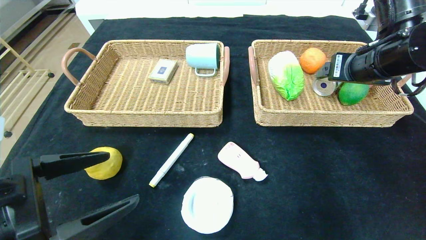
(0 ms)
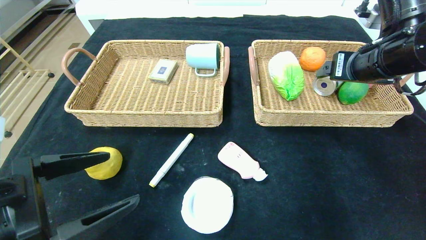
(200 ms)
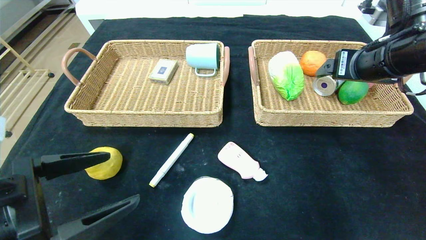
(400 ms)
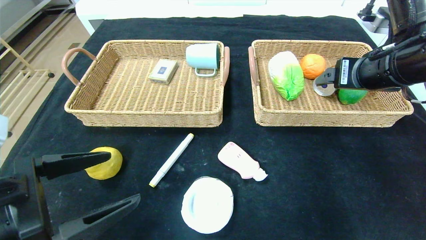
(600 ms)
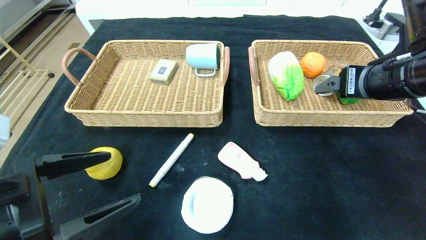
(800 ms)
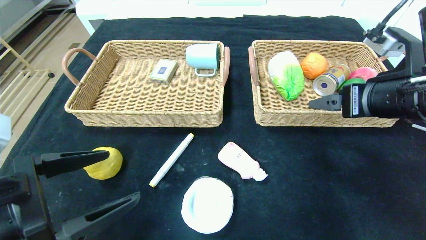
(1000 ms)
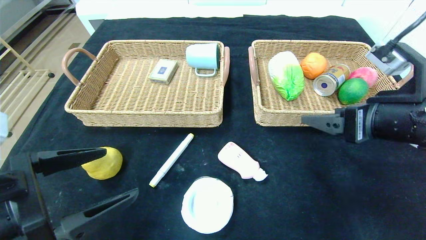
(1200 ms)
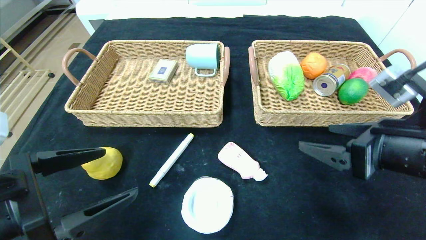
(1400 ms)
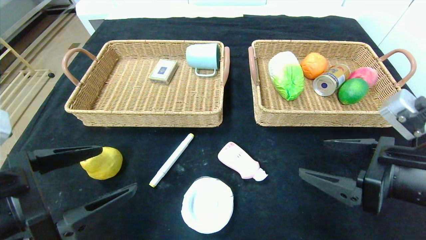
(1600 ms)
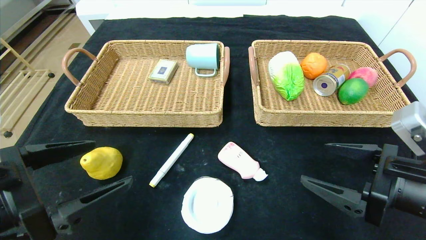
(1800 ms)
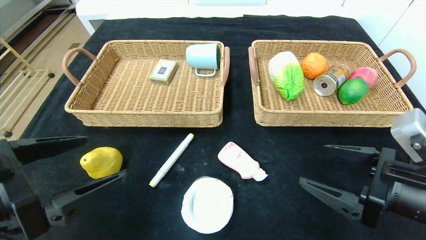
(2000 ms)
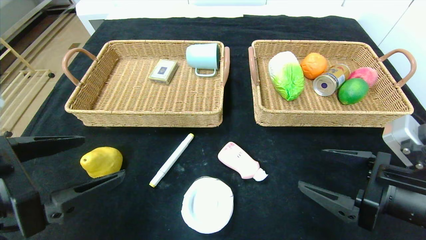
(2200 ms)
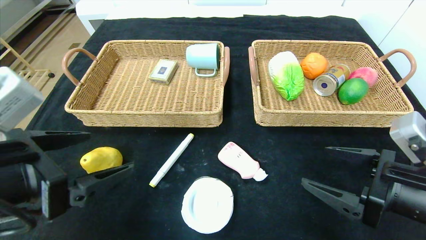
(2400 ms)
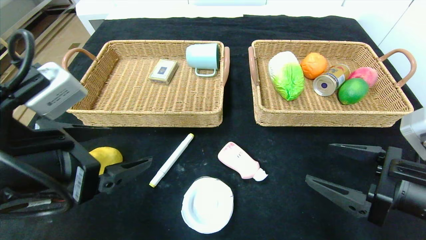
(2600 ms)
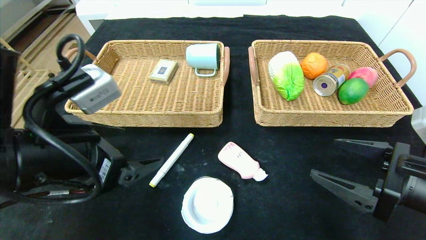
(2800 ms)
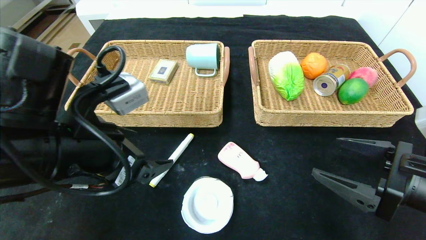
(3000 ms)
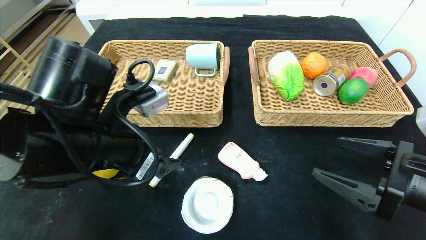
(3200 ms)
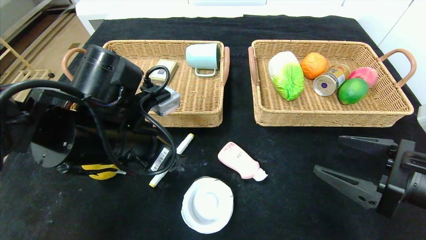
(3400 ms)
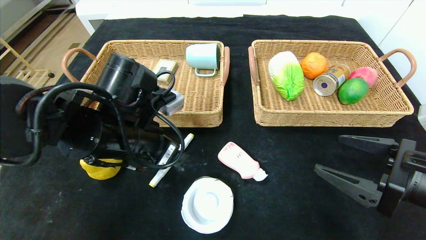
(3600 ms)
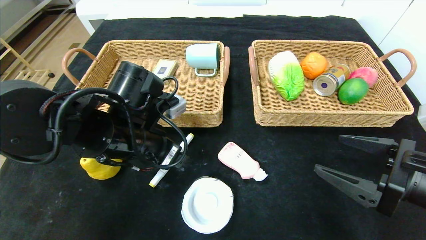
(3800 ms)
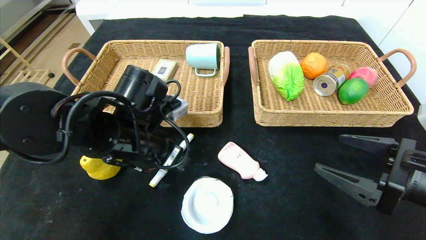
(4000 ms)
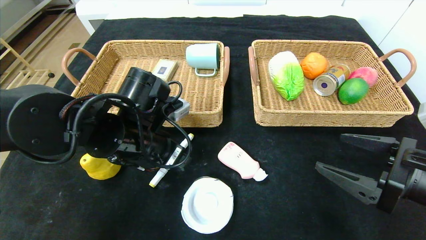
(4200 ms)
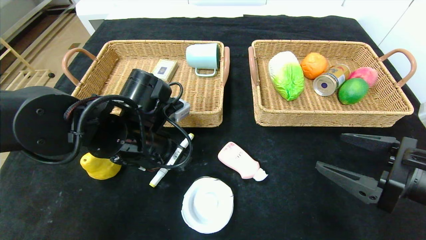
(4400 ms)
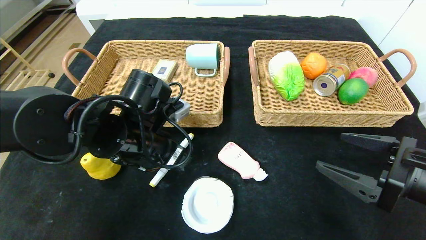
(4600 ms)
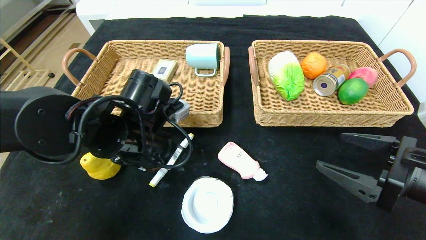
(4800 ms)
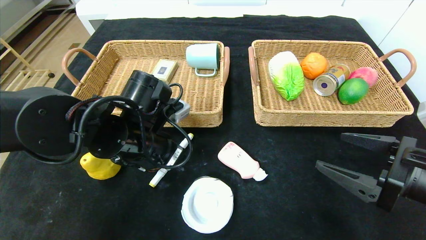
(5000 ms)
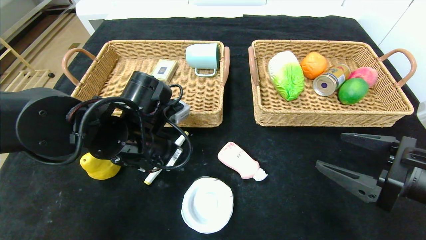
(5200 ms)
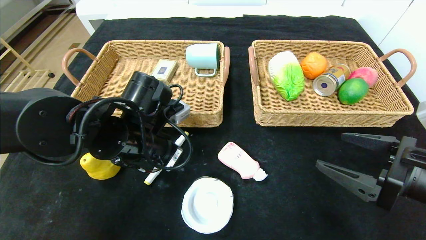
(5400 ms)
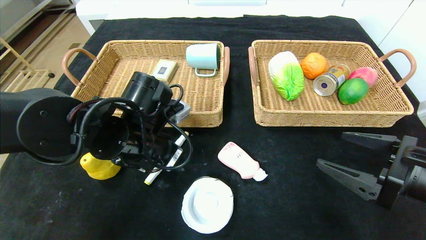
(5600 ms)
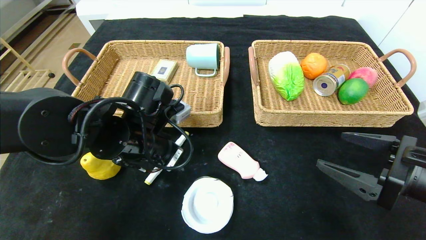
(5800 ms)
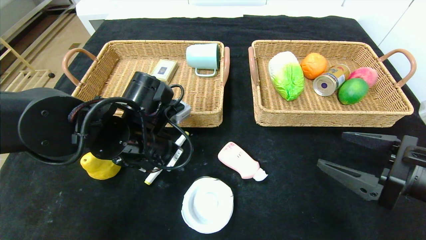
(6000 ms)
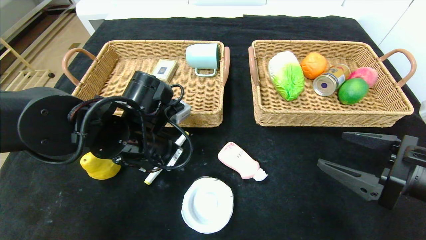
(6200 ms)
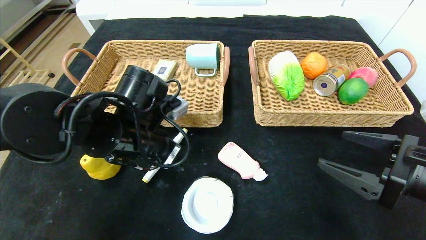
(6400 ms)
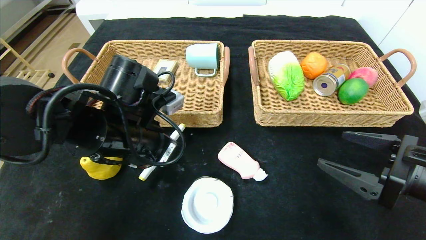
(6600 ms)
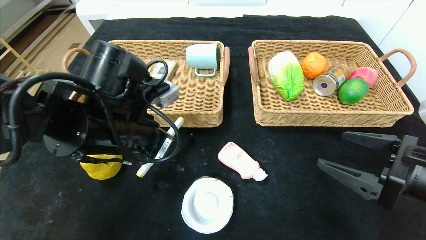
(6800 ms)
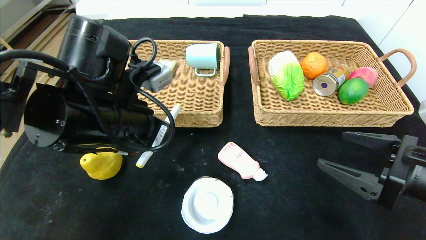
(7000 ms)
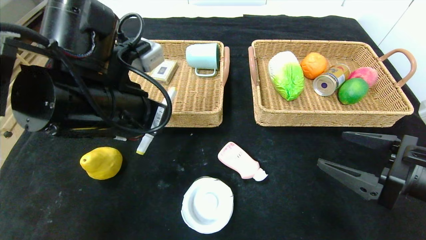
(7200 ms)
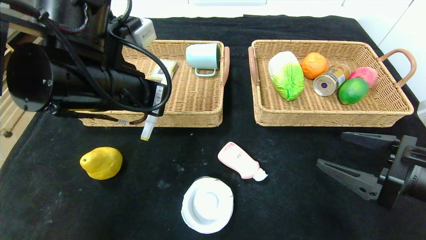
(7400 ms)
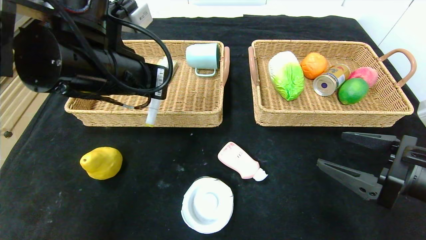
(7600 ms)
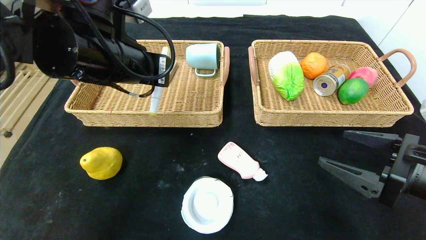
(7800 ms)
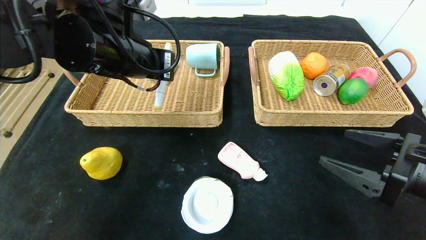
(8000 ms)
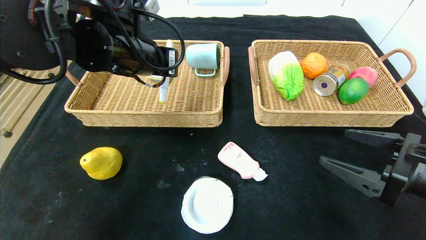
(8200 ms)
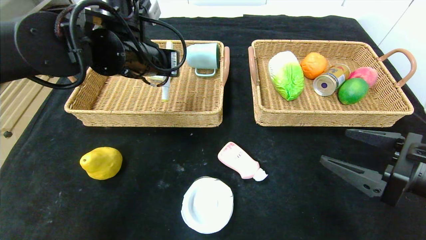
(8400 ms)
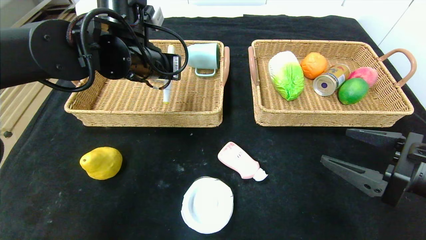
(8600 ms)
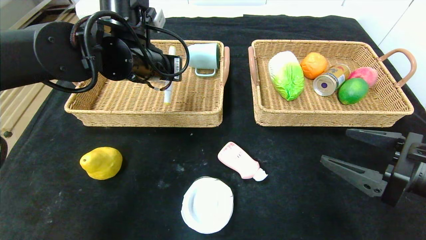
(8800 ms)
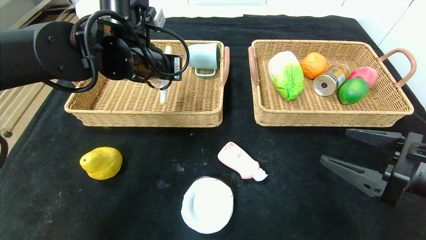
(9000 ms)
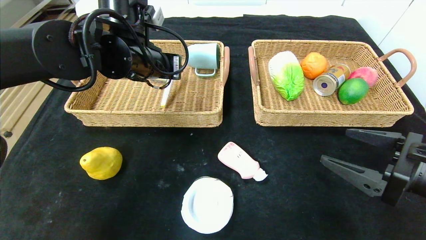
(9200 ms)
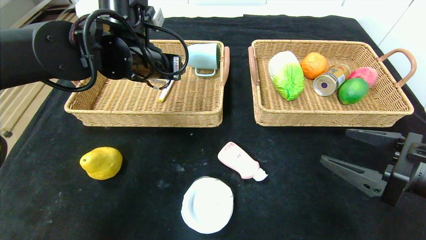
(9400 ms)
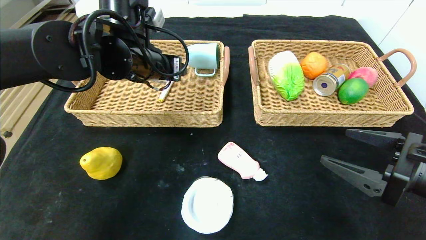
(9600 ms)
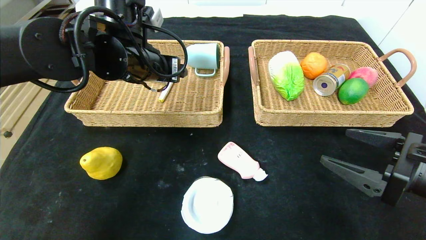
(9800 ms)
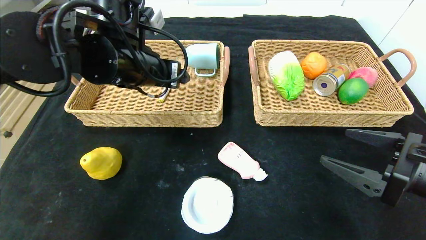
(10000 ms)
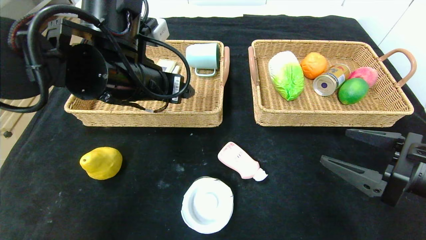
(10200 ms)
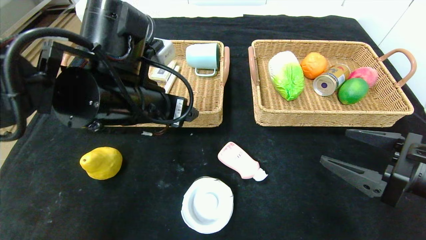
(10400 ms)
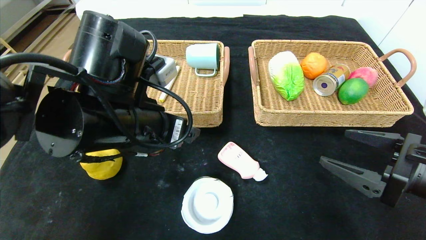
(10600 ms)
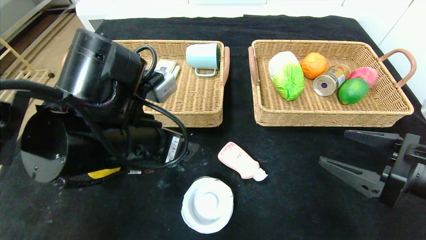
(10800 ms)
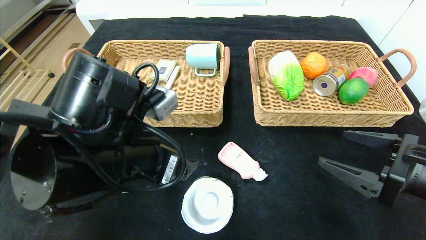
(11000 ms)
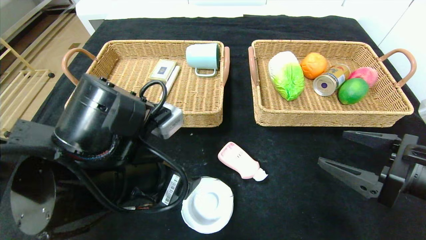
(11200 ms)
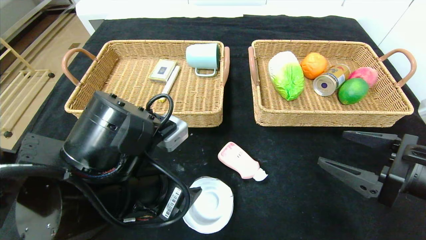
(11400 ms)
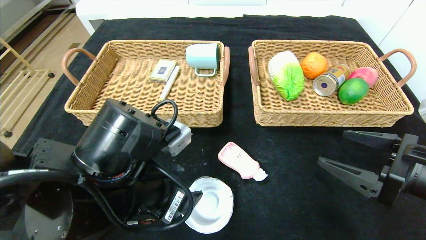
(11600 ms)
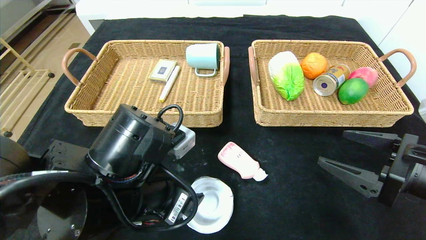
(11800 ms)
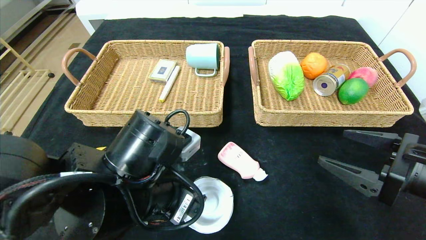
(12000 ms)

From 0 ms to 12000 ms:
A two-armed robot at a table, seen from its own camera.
Step, from 200 ms to 9200 ms: Grasp the yellow marker and put it in the left basket.
From 0 ms to 1600 ms: The right gripper moves backward and downward, roughly 20 cm.
From 1600 ms to 3000 ms: The left gripper is displaced forward and to the right by about 10 cm.
From 3000 ms to 4400 ms: The left gripper is displaced forward and downward by about 10 cm.
From 4400 ms to 6000 ms: The left gripper closes.
From 6000 ms to 7600 ms: The left gripper heads upward, covering some 10 cm.
From 7600 ms to 9000 ms: The left gripper is displaced forward by some 10 cm.
From 9000 ms to 10400 ms: The left gripper moves backward, approximately 10 cm, and opens.
From 10400 ms to 12000 ms: The left gripper moves downward and backward, approximately 10 cm.

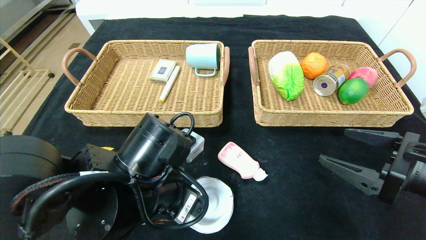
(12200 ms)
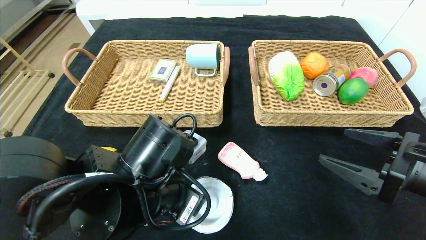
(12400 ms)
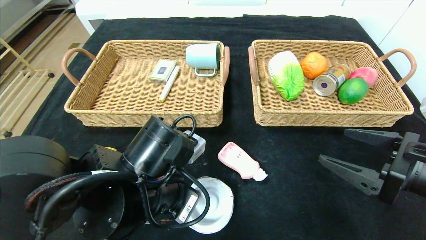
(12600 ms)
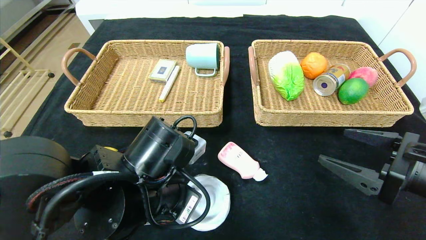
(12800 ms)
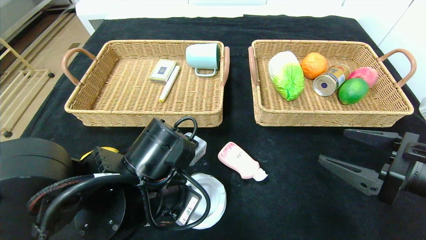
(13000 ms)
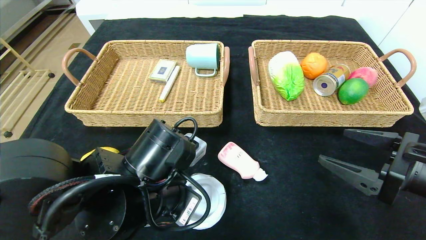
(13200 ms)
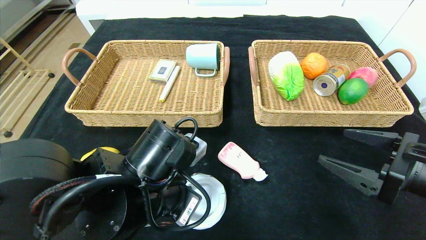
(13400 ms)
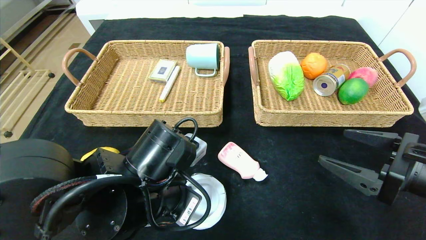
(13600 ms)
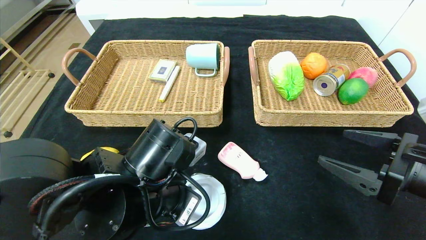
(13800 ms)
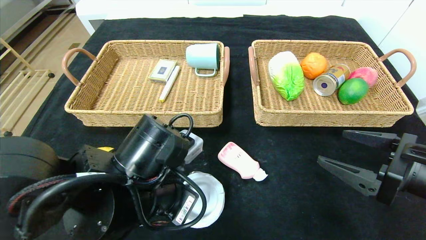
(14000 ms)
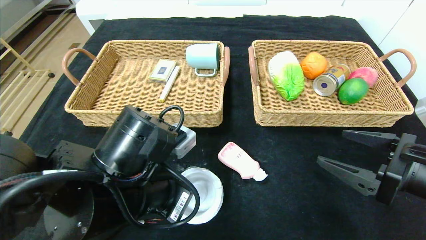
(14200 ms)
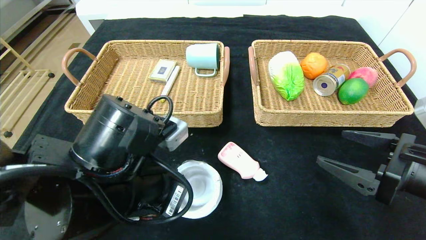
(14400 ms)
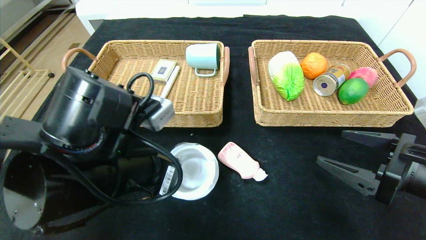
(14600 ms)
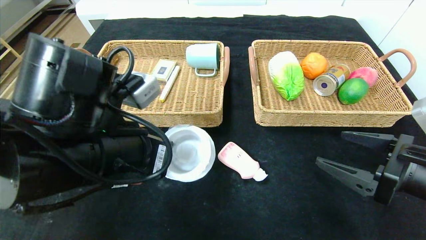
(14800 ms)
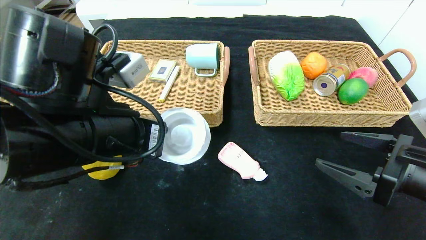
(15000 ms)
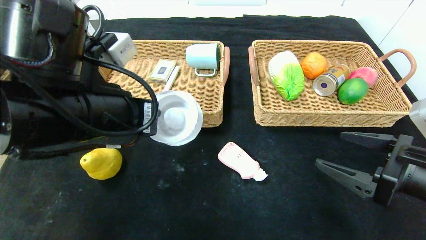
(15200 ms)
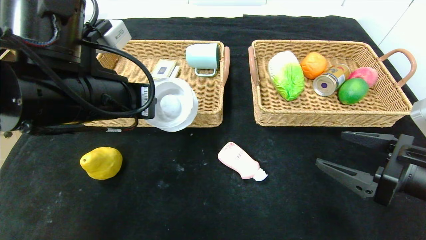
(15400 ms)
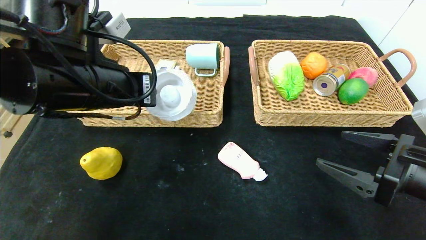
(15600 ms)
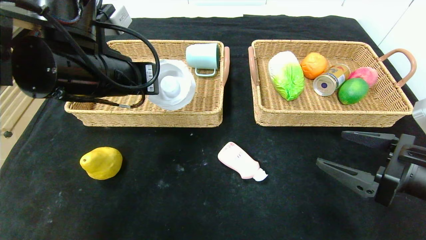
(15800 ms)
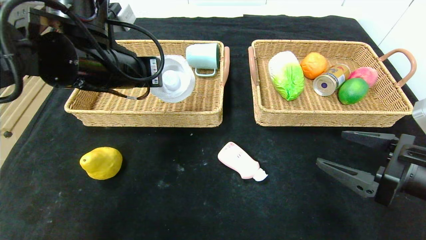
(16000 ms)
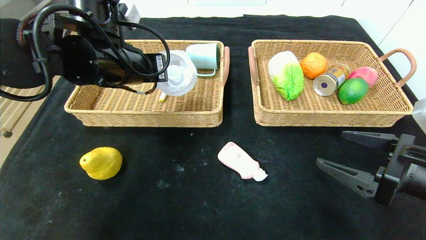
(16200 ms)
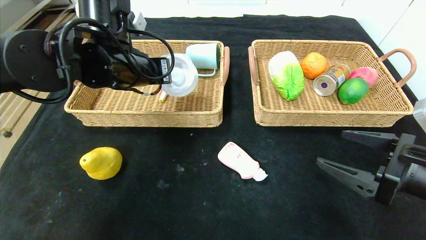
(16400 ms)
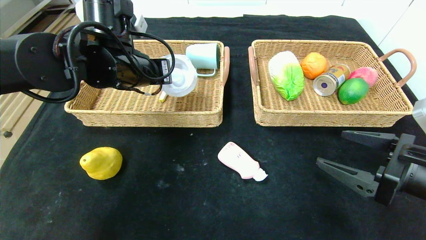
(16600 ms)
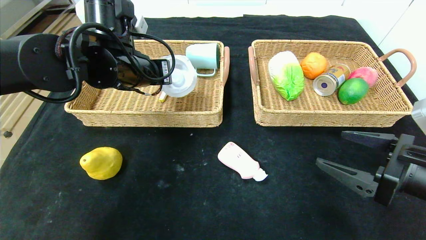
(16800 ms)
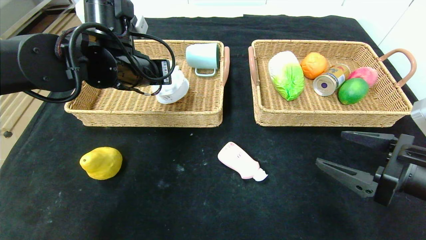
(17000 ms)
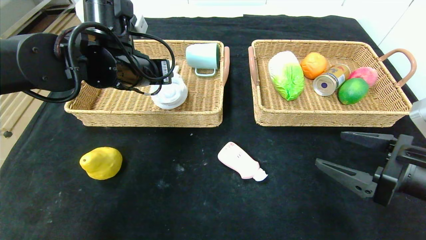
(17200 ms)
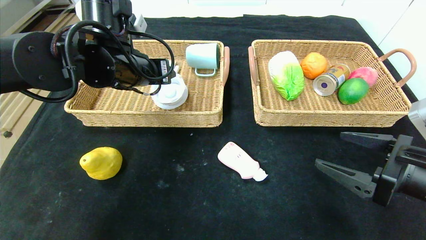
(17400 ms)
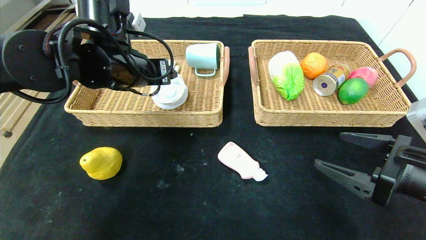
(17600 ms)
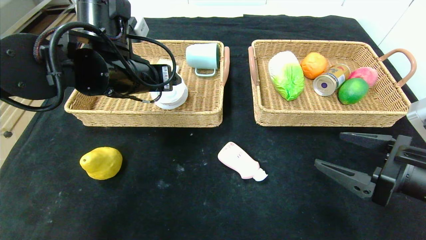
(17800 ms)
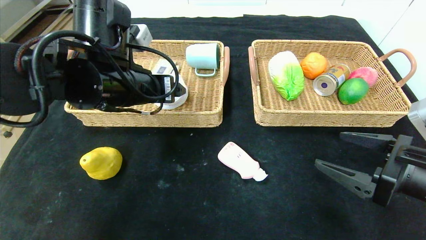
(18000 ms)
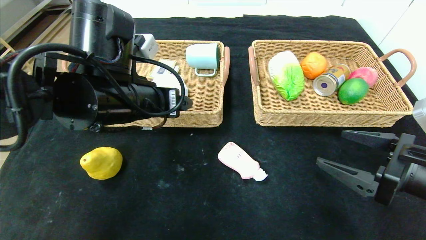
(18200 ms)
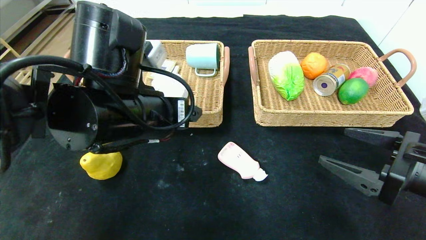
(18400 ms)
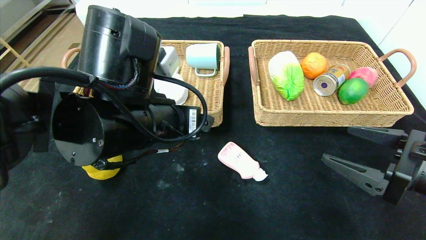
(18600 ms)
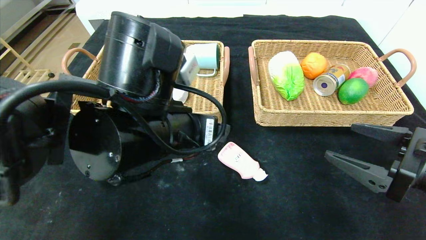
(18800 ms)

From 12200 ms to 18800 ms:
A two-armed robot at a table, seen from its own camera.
Step, from 12200 ms to 17000 ms: Grasp the tape and put it in the left basket.
From 12200 ms to 13800 ms: The left gripper closes its fingers.
From 13800 ms to 15400 ms: The left gripper goes some 15 cm upward and to the left.
From 15400 ms to 17200 ms: The left gripper heads forward, covering some 10 cm, and opens.
From 17200 ms to 18800 ms: The left gripper is displaced backward and to the right by roughly 15 cm, and opens.
